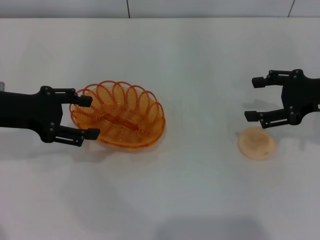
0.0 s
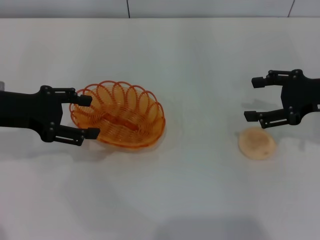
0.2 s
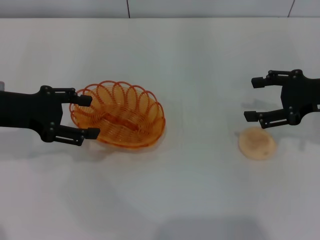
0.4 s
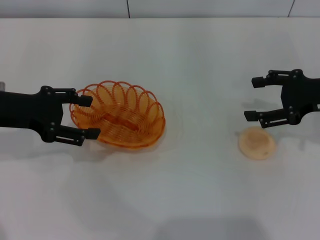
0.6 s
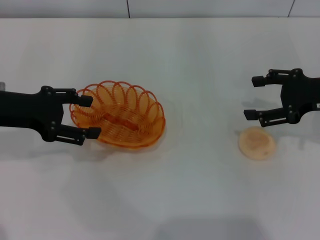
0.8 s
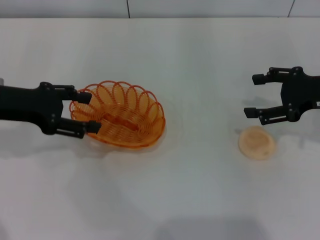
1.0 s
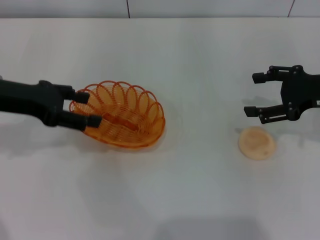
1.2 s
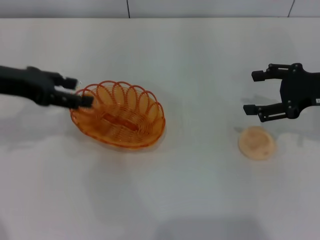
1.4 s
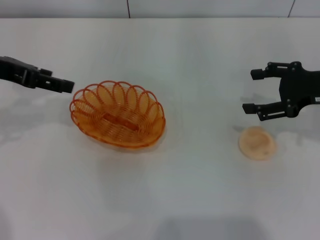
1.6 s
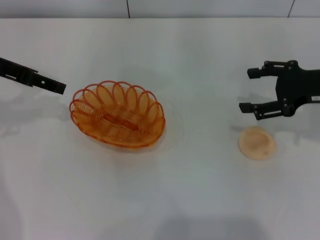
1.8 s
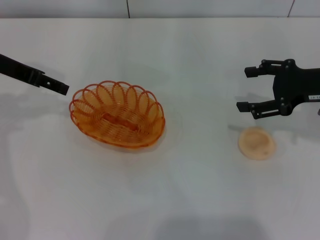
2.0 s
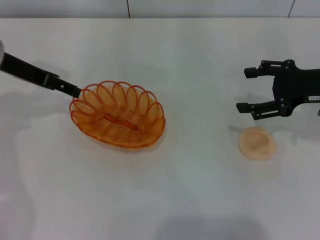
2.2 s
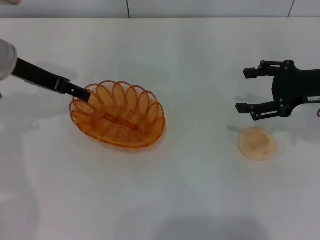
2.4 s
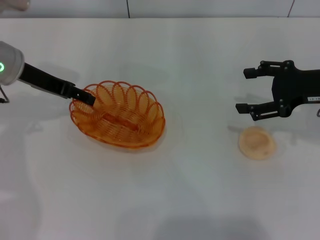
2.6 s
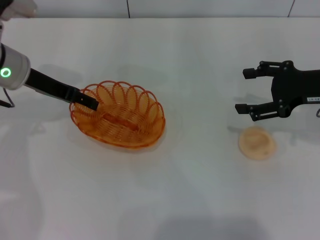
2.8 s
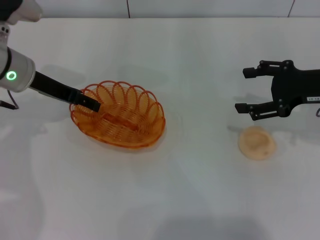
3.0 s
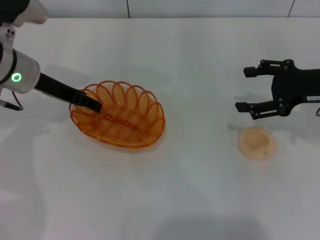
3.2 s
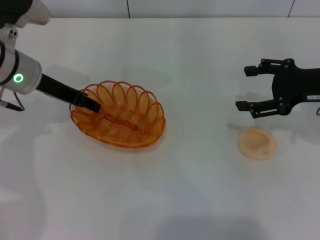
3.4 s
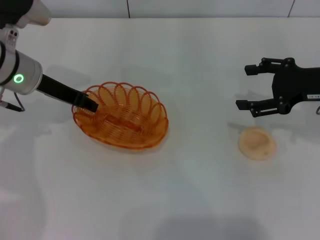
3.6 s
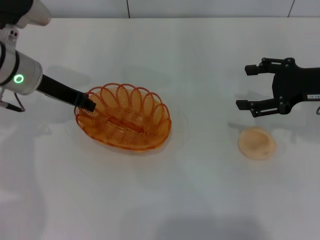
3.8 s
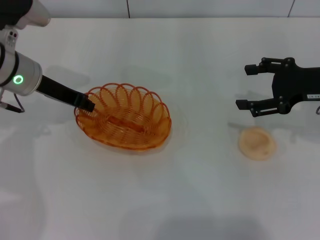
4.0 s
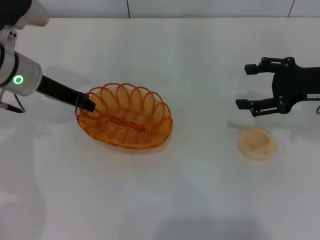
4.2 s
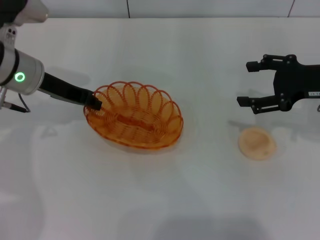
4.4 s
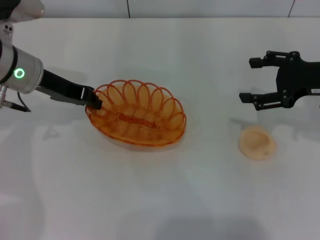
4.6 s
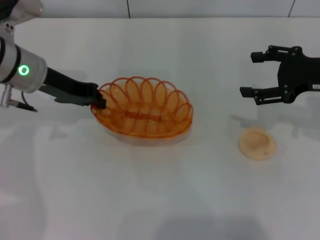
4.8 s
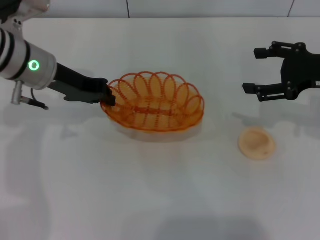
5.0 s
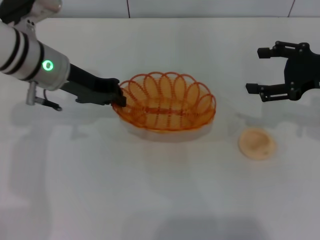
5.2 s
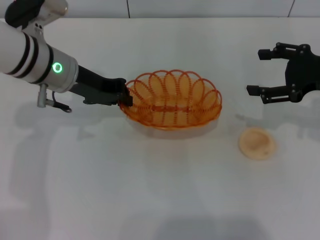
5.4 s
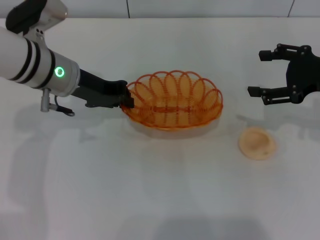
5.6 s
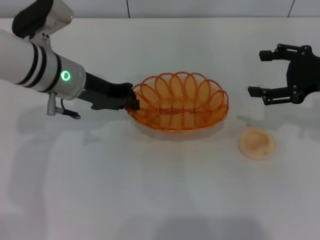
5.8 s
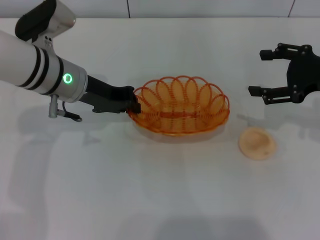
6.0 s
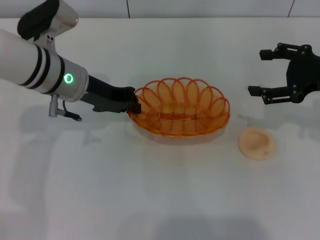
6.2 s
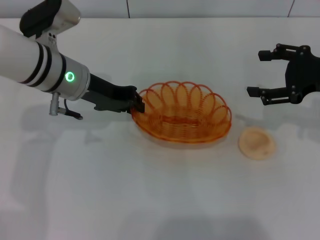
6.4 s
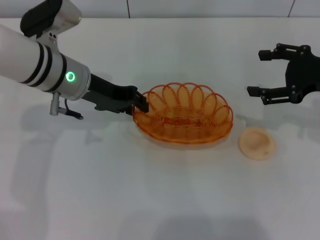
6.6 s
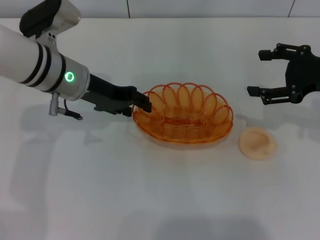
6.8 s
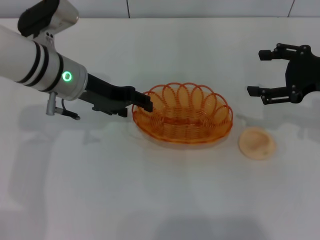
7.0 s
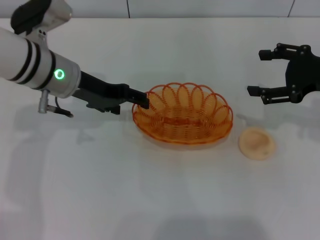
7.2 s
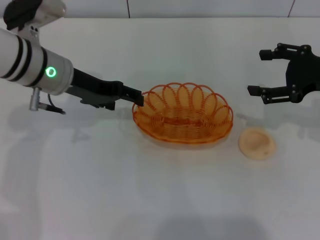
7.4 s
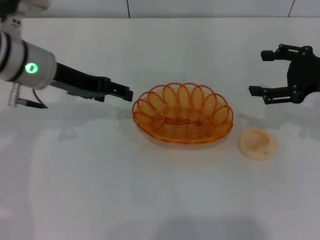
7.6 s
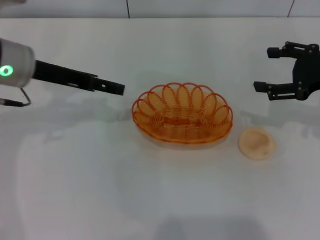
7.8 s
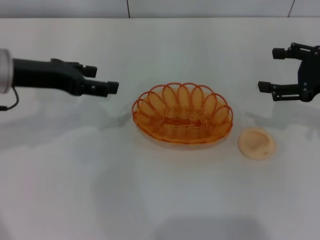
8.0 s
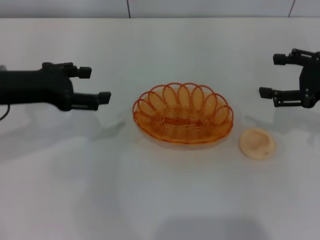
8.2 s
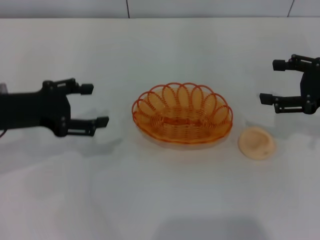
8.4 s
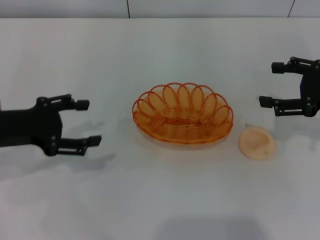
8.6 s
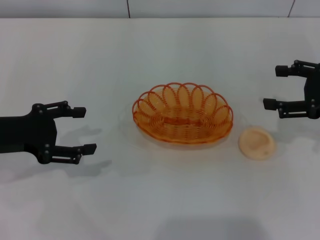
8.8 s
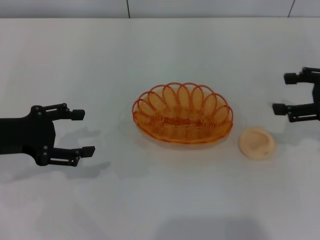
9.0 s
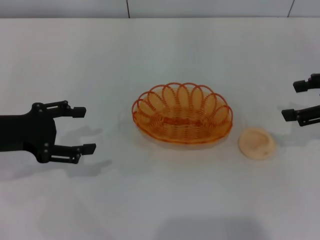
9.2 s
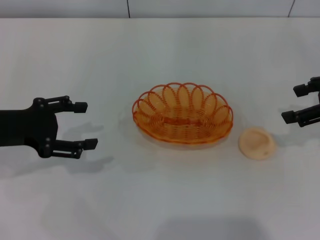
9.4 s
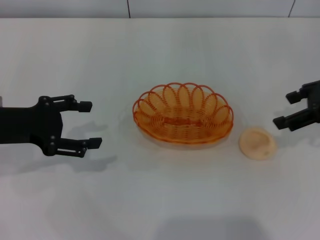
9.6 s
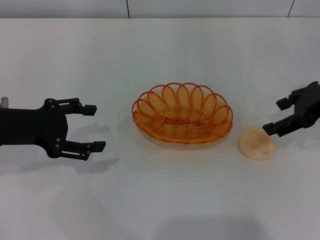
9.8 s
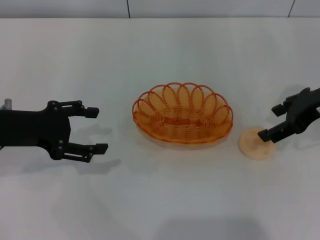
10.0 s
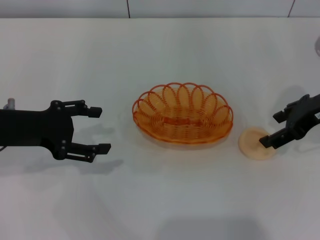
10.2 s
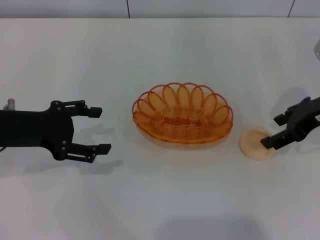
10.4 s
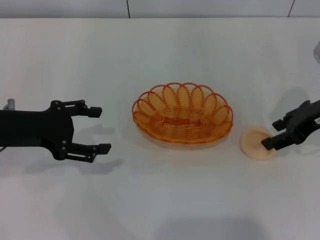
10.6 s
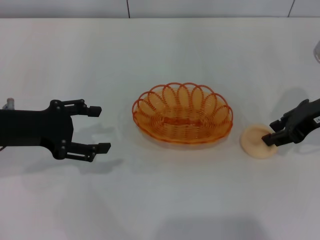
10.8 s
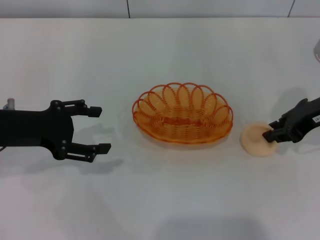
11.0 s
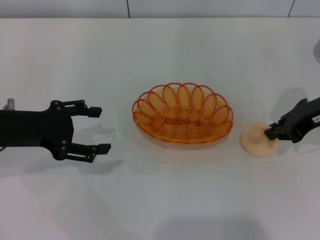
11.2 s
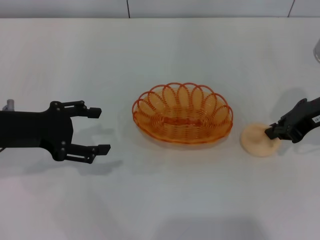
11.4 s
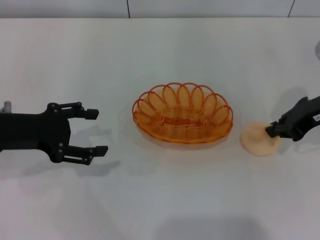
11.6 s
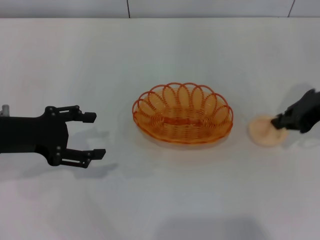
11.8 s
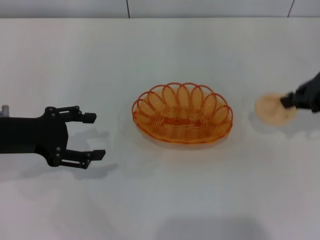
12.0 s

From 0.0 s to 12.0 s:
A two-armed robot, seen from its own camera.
Step, from 0.0 s to 5.2 s: Pick up the basket with the left gripper.
Step, from 5.6 s to 7.8 s: Place the basket in the center of view with the left gripper.
Step, from 8.2 s to 12.0 s: Pick up the egg yolk pastry with the right gripper.
From 0.0 s to 1.6 s: The left gripper goes roughly 5 cm upward.
From 1.6 s to 3.0 s: The left gripper goes roughly 10 cm downward and to the right.
From 3.0 s to 4.4 s: The left gripper closes.
From 4.4 s to 6.0 s: The left gripper goes roughly 5 cm to the right.
From 6.0 s to 7.6 s: The left gripper opens up.
From 7.6 s to 9.0 s: The left gripper moves backward and to the left, some 15 cm.
From 9.0 s to 10.4 s: The right gripper goes approximately 5 cm to the left.
From 10.4 s to 12.0 s: The right gripper closes up.

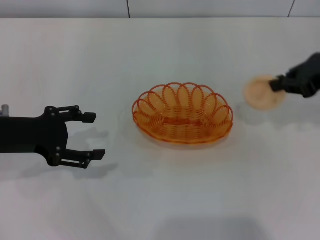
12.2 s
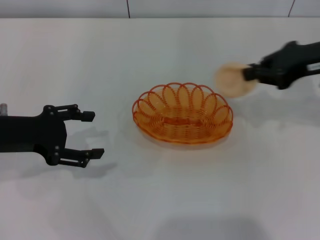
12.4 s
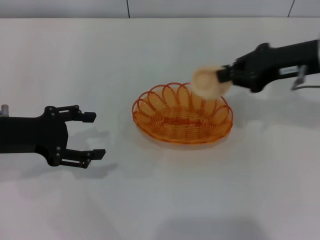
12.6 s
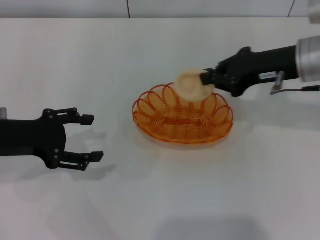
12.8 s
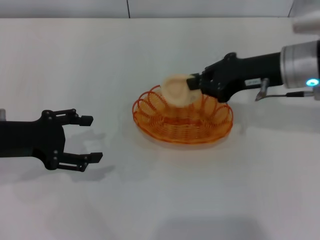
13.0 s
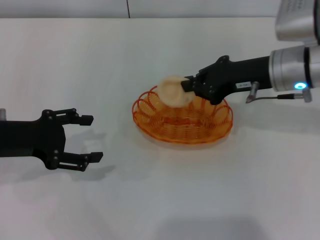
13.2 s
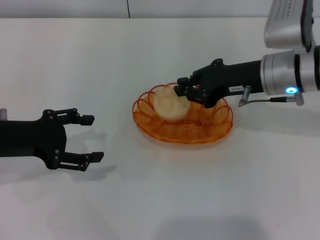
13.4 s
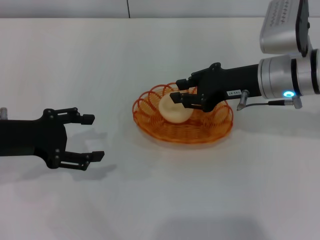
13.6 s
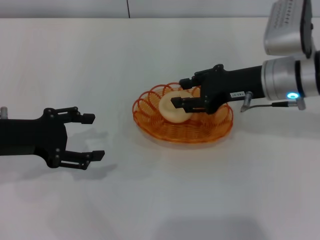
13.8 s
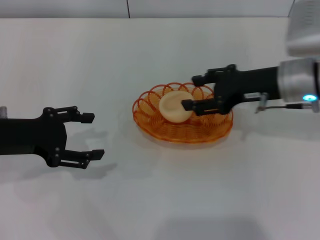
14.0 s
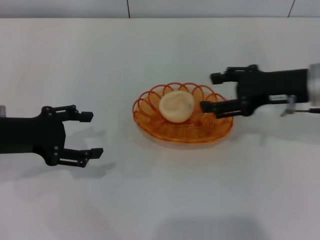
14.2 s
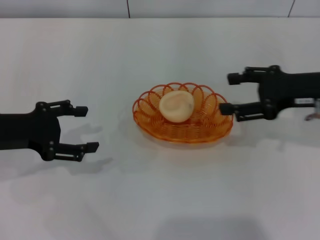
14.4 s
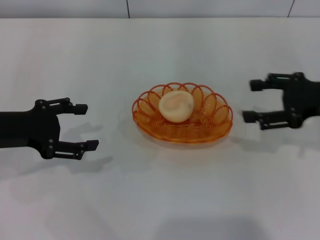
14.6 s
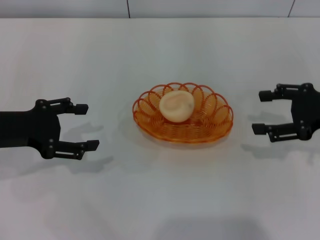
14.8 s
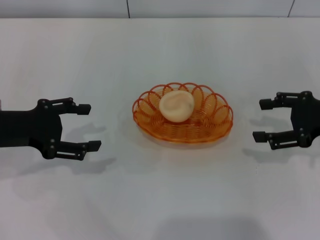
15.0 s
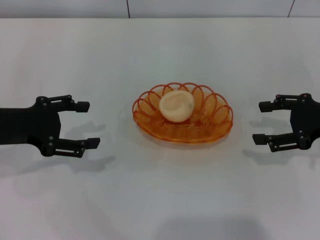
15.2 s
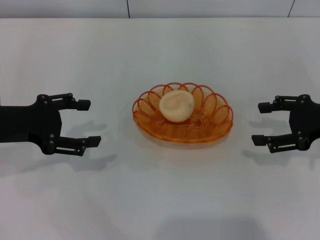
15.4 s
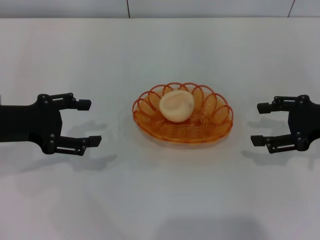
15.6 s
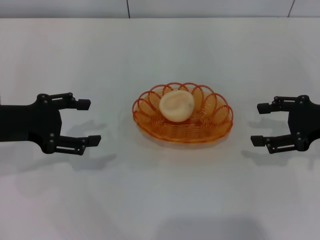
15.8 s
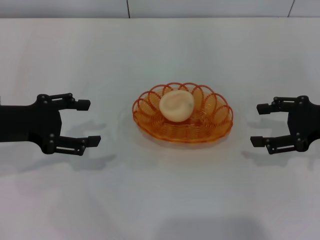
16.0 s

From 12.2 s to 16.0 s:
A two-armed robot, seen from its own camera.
Step, from 12.2 s to 14.4 s: Place the egg yolk pastry into the basket with the right gripper.
From 12.2 s to 13.4 s: The right gripper moves to the left and downward, about 15 cm.
From 13.4 s to 14.8 s: The right gripper moves to the right and backward, some 15 cm, and opens up.
From 14.8 s to 16.0 s: Both grippers stay put.

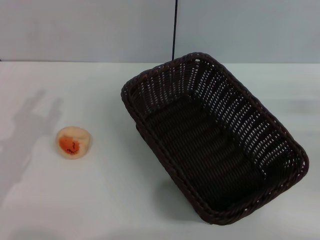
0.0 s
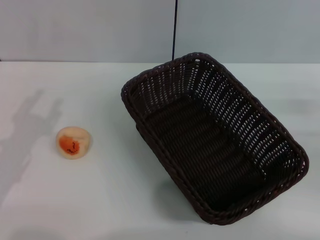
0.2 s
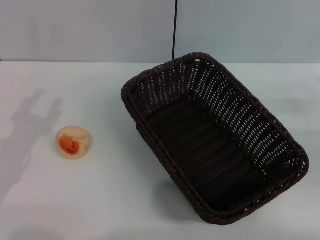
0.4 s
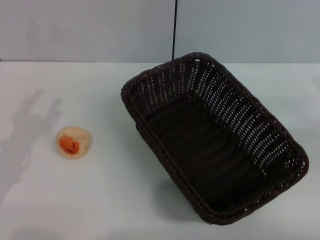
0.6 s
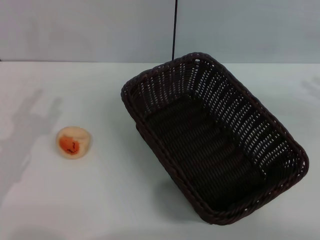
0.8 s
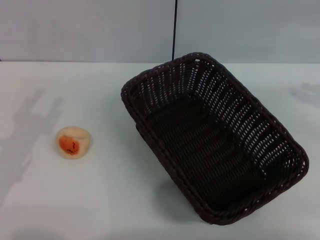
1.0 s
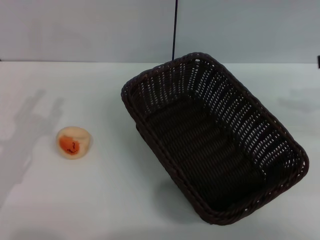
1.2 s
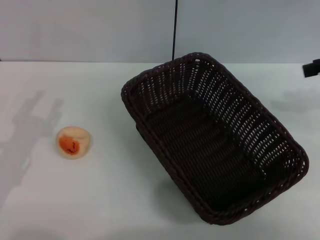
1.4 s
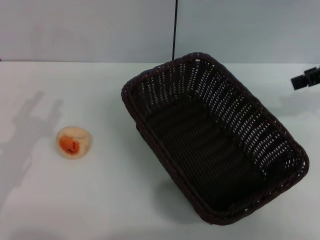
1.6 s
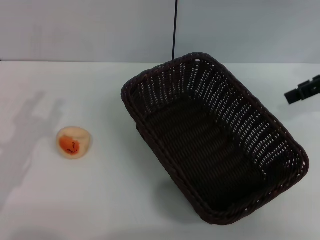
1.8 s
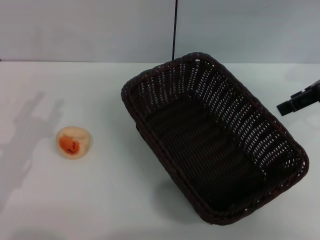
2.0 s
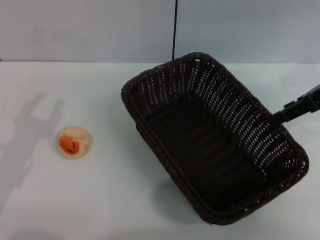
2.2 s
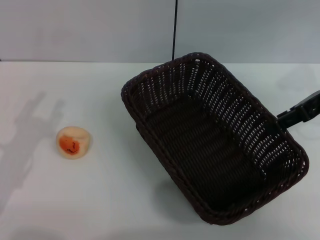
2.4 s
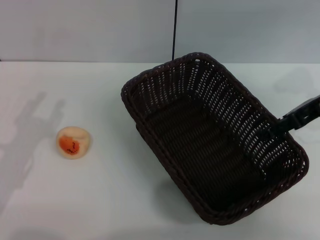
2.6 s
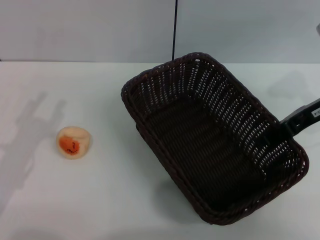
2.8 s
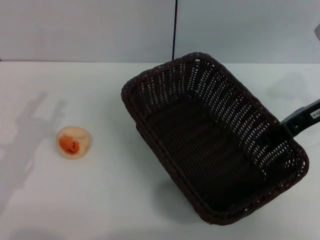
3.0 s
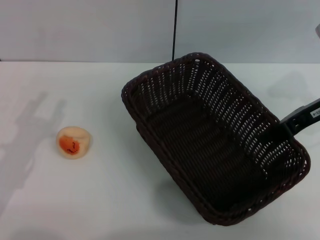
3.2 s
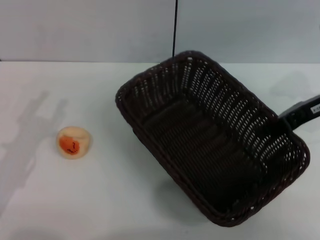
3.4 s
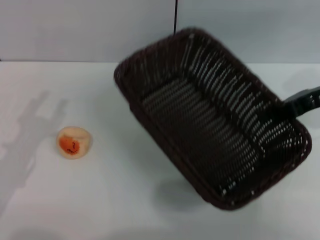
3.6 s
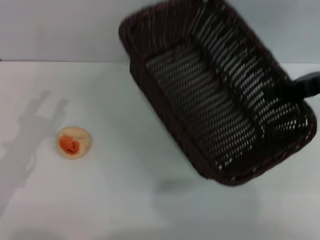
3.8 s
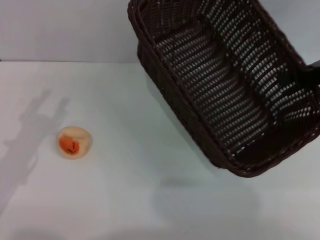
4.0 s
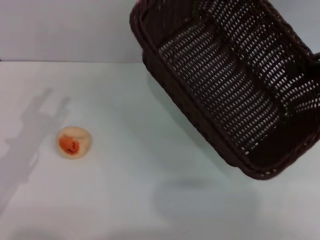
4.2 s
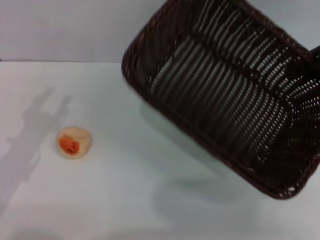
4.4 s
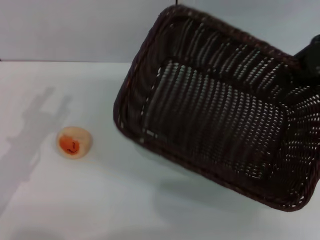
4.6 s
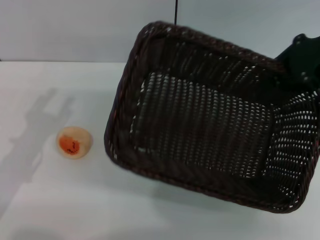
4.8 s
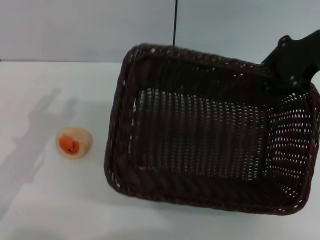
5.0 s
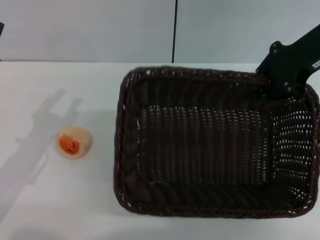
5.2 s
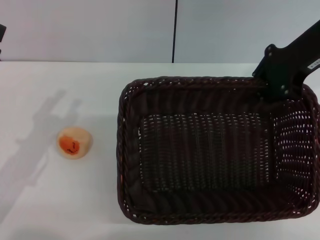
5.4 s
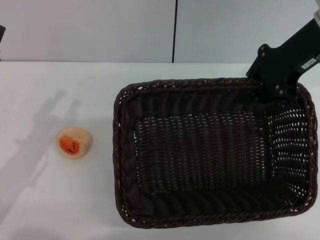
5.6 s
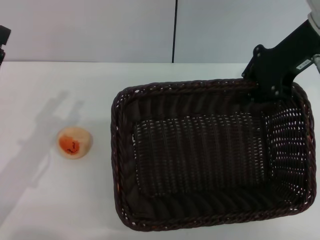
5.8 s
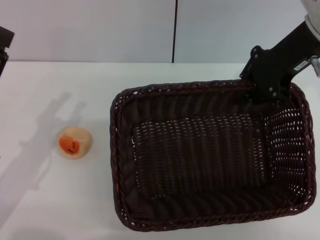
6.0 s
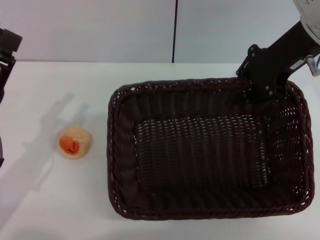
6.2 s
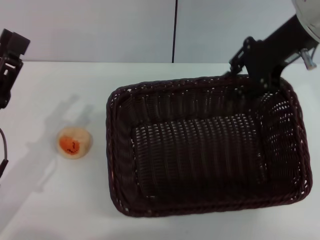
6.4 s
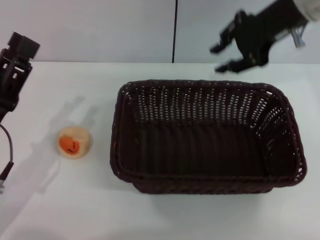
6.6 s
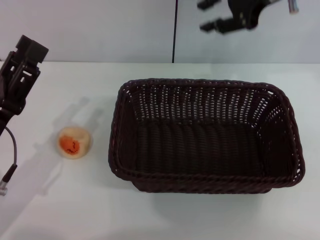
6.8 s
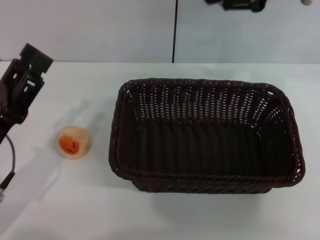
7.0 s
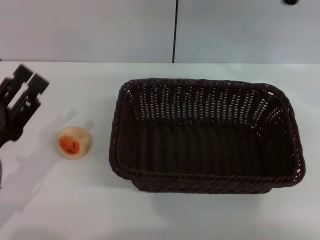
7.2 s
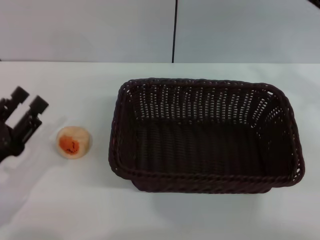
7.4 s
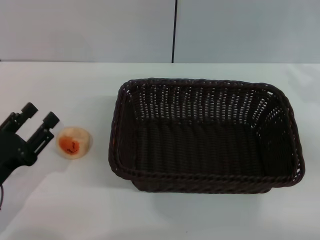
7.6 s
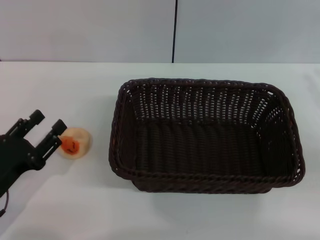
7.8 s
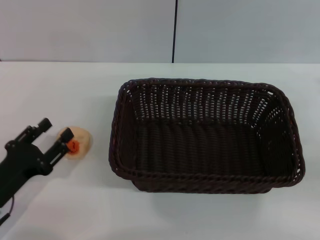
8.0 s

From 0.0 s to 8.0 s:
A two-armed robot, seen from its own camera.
Step, from 0.0 s to 6.6 s: Move the basket to the center of view with the right gripper.
From 0.0 s to 1.6 s: The right gripper shifts some 20 cm upward, forward and to the left. The left gripper opens.
From 1.6 s to 3.2 s: The right gripper travels downward and to the left by approximately 10 cm, and closes up.
From 3.2 s to 4.8 s: The right gripper is displaced upward by some 10 cm.
From 4.8 s to 6.4 s: The right gripper travels to the left by approximately 10 cm.
From 6.4 s to 8.0 s: The left gripper shifts about 5 cm downward, while the right gripper heads to the right, backward and downward, covering about 30 cm.
